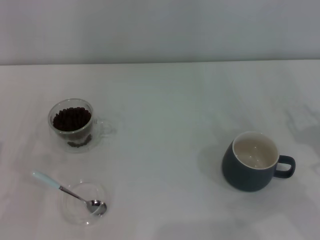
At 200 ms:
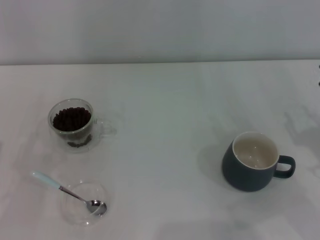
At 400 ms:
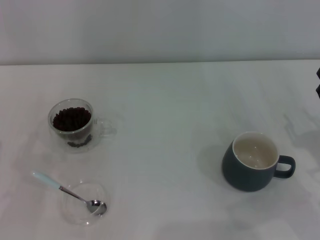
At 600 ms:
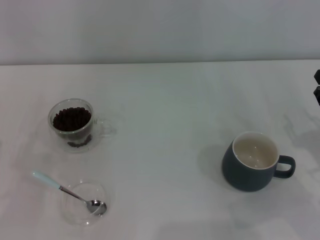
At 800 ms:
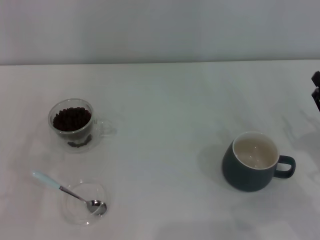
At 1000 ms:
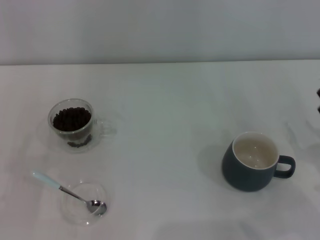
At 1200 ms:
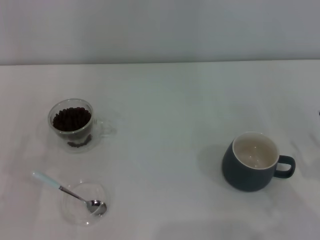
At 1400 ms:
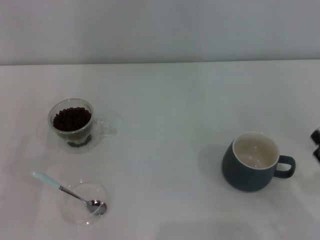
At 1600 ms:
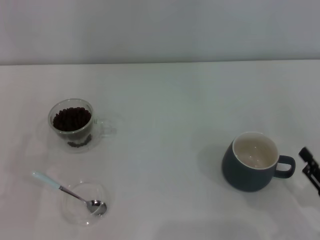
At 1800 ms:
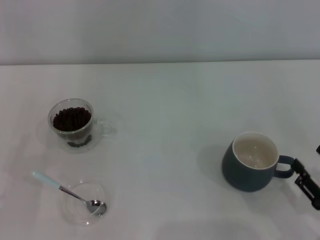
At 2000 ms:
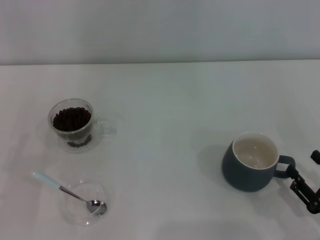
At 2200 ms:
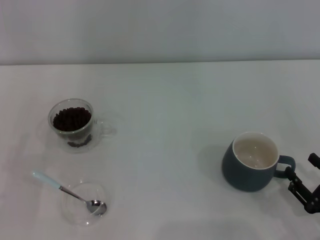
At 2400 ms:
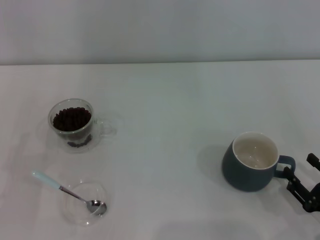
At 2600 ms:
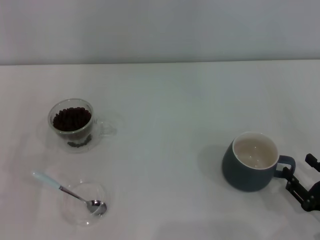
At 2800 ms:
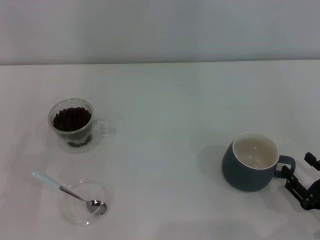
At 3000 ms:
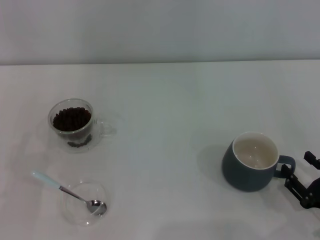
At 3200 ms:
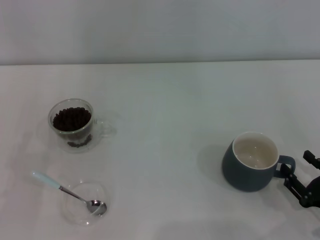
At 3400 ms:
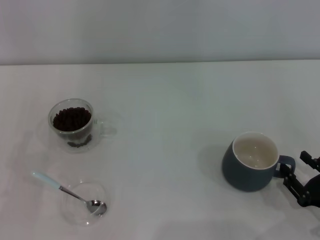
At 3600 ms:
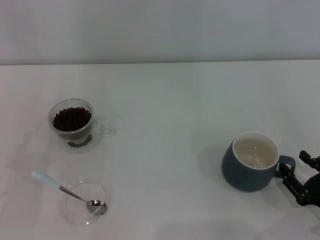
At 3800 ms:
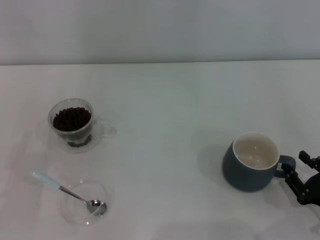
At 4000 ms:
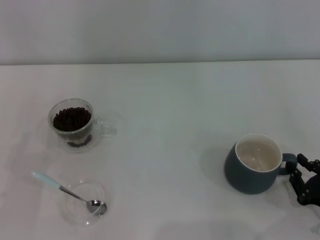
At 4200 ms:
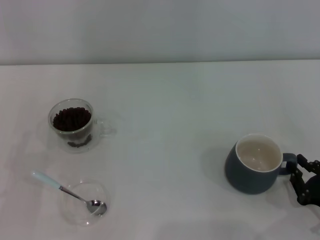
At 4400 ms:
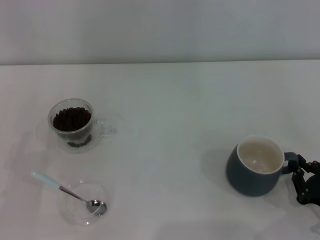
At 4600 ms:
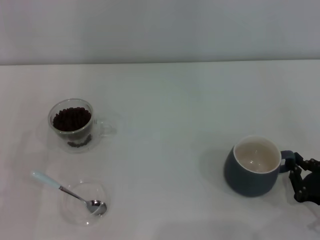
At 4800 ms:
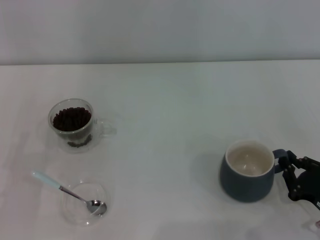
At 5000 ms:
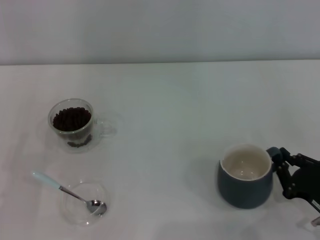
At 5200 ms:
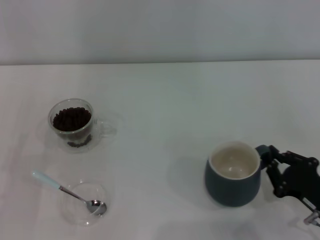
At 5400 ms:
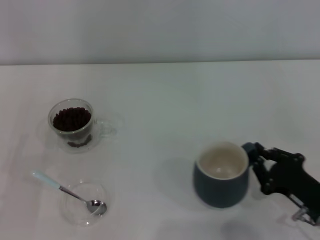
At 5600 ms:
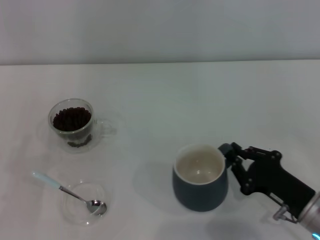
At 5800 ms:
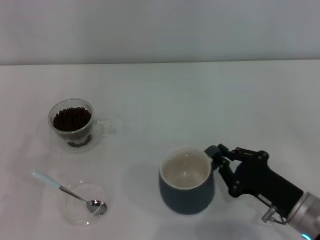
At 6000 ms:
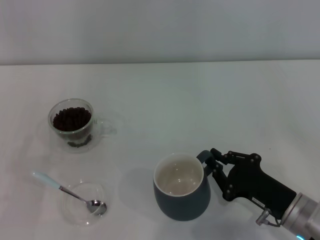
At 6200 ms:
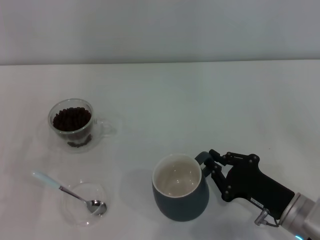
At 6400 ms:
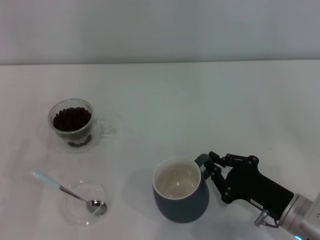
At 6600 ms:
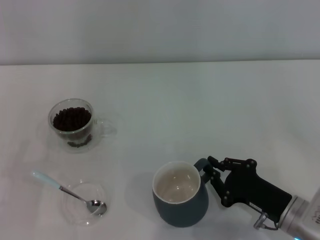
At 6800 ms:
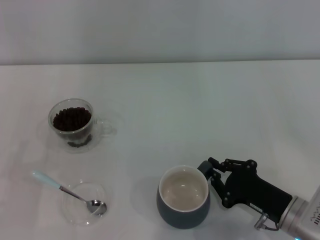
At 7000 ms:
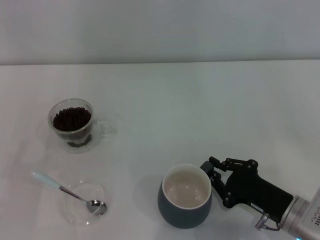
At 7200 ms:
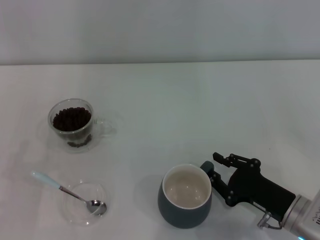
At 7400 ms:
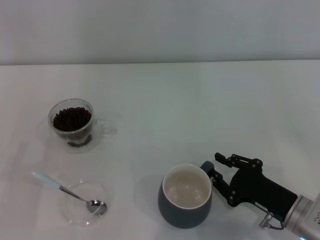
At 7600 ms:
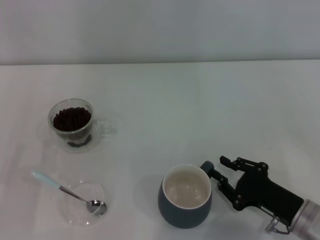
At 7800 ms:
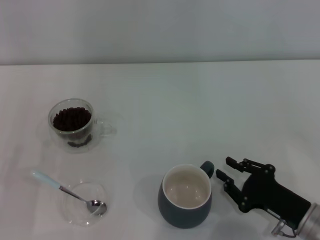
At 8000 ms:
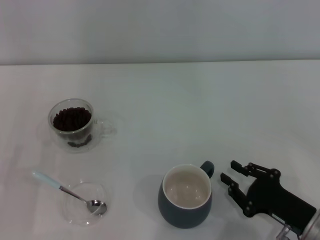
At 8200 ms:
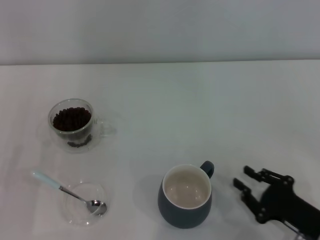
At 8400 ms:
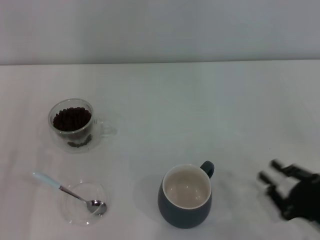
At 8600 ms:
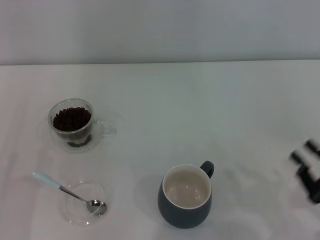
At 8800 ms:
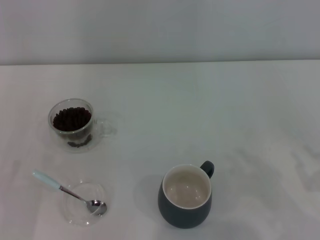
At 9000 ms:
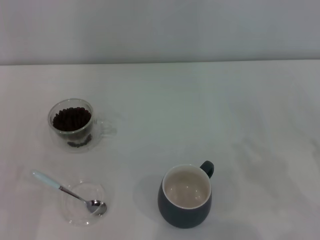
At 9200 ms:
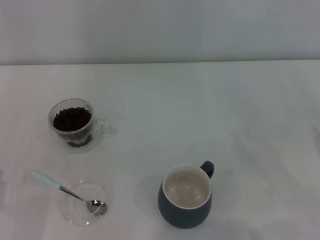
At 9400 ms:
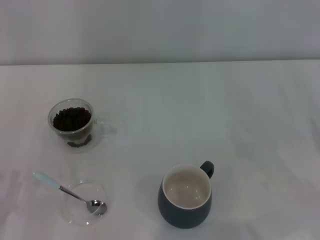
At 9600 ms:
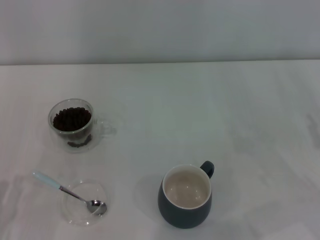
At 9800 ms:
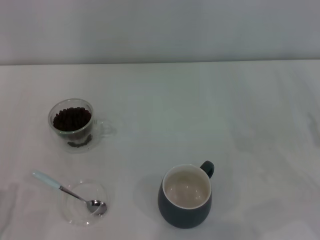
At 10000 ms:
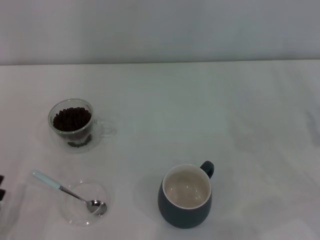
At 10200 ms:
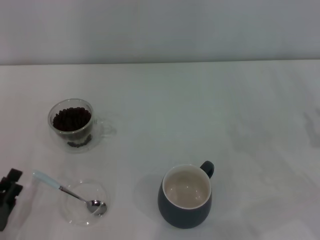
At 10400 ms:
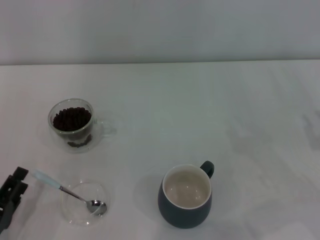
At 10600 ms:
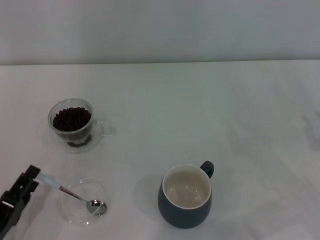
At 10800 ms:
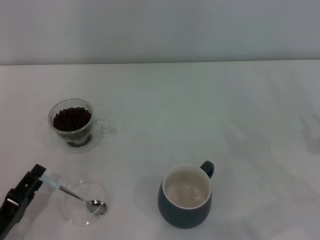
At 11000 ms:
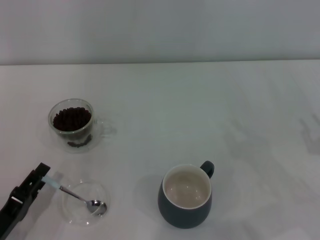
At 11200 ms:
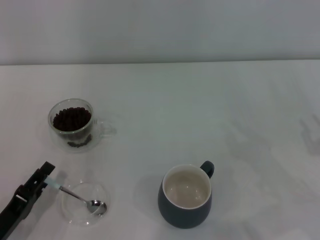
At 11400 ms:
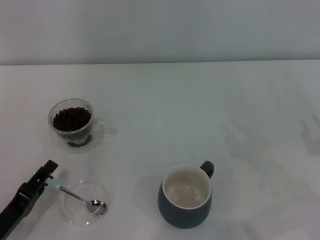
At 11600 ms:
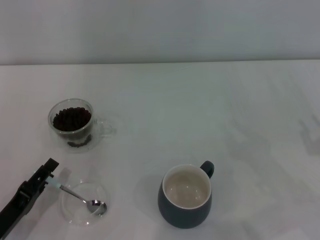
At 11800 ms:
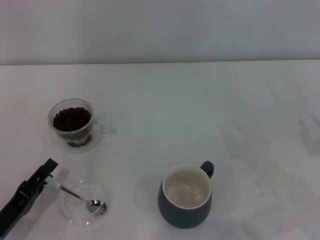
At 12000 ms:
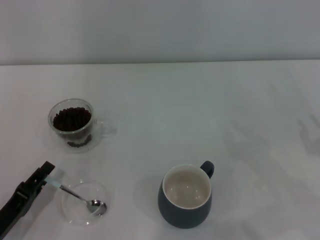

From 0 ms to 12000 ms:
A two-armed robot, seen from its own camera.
Task of the whole recording: Use a blue spoon to take out the coffee beans from the glass and pour them into the gray cup.
Step, from 0 ms to 8000 ms: Move the cup to the center of view with the left gripper.
From 0 ms to 1600 ms: The right gripper travels backward by about 10 cm.
From 1600 ms to 3000 ms: The grippers move only a little.
From 3000 ms to 4400 ms: The right gripper closes.
From 4400 ms to 6000 ms: The right gripper heads to the left, covering roughly 10 cm.
From 6000 ms to 7600 ms: The right gripper opens.
From 7600 ms to 9000 ms: The right gripper moves to the right and upward, roughly 15 cm.
From 9000 ms to 10400 ms: The left gripper moves some 5 cm.
From 10400 ms to 12000 ms: There are only small adjustments of the grippers.

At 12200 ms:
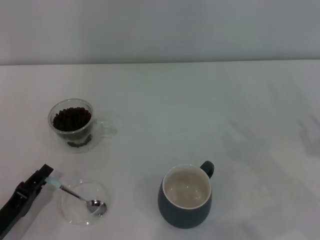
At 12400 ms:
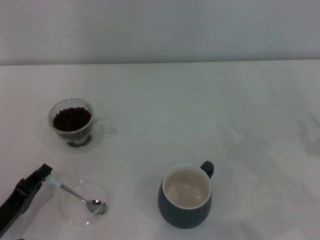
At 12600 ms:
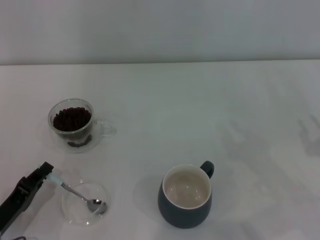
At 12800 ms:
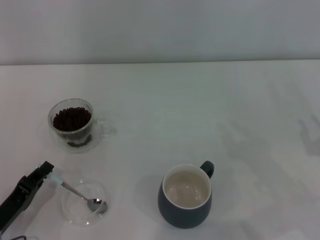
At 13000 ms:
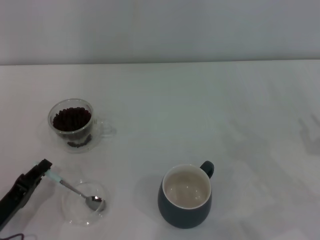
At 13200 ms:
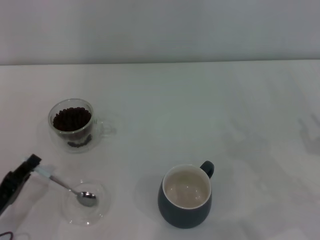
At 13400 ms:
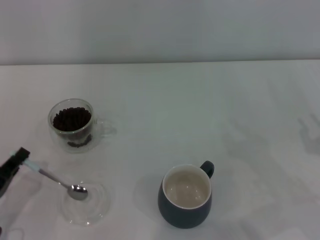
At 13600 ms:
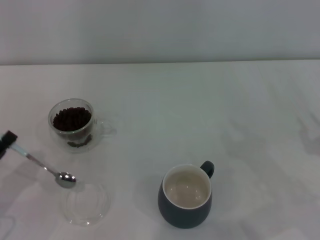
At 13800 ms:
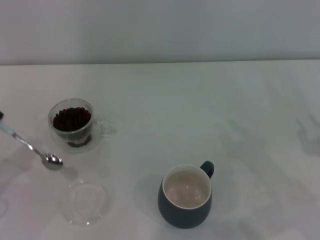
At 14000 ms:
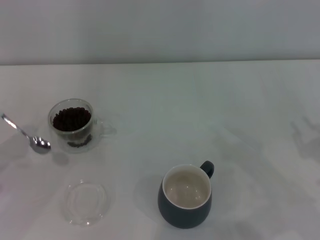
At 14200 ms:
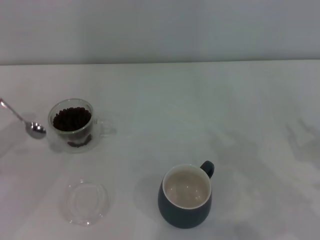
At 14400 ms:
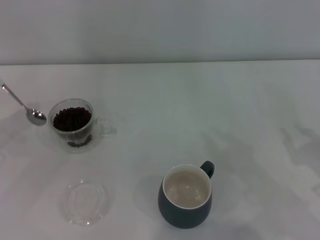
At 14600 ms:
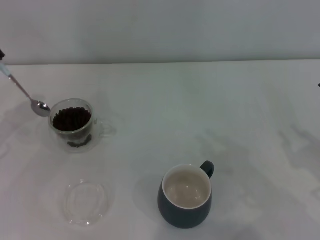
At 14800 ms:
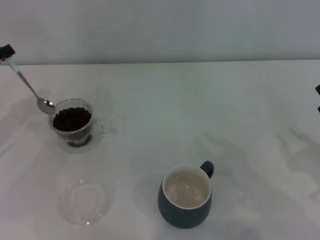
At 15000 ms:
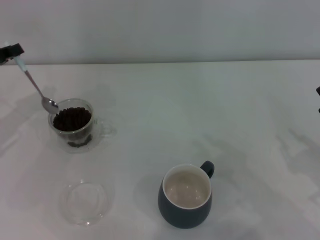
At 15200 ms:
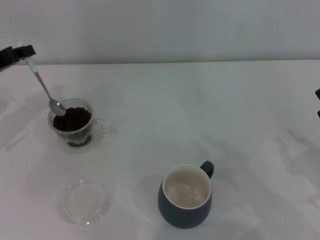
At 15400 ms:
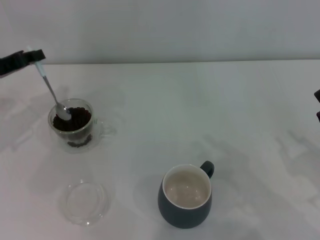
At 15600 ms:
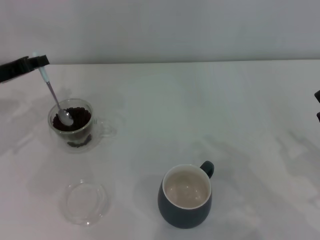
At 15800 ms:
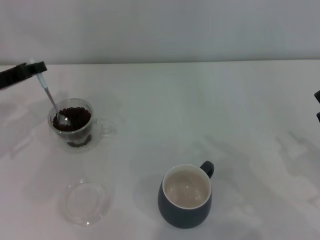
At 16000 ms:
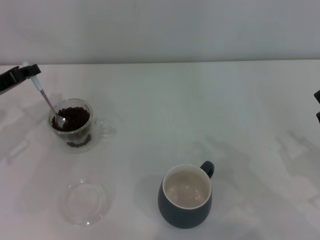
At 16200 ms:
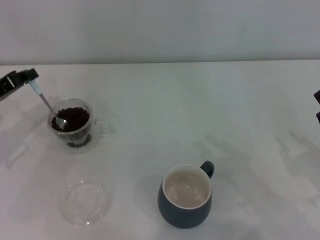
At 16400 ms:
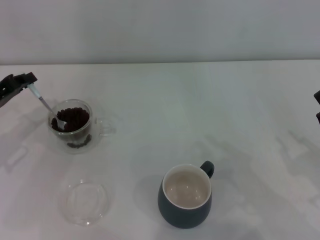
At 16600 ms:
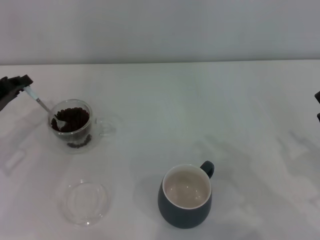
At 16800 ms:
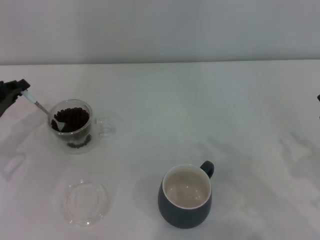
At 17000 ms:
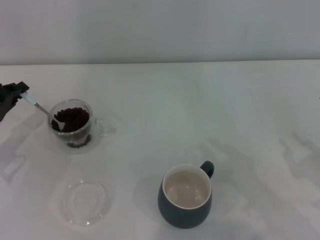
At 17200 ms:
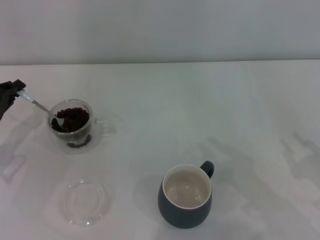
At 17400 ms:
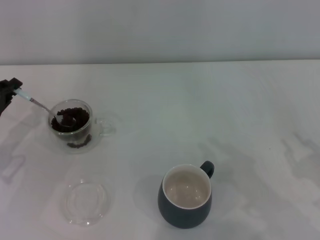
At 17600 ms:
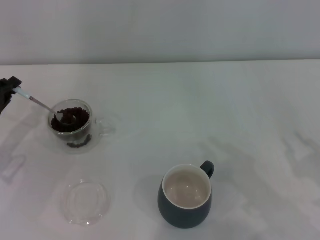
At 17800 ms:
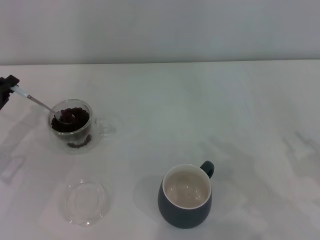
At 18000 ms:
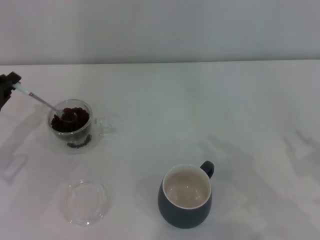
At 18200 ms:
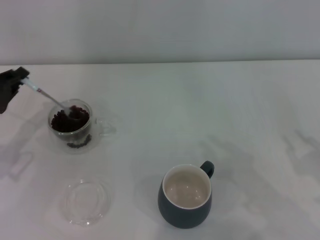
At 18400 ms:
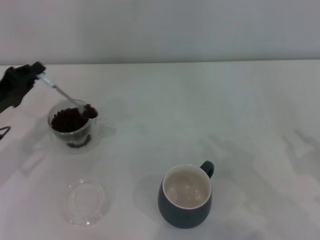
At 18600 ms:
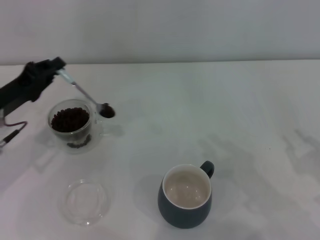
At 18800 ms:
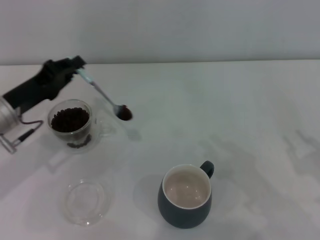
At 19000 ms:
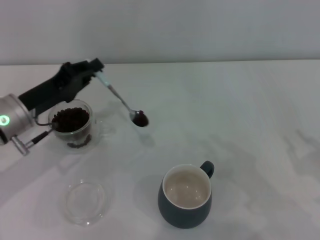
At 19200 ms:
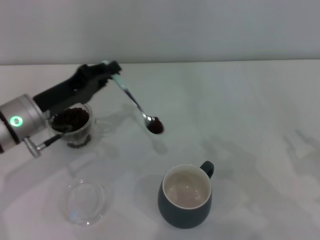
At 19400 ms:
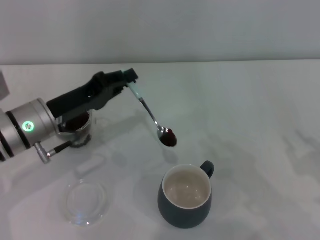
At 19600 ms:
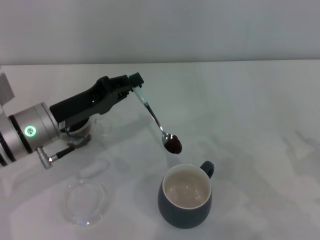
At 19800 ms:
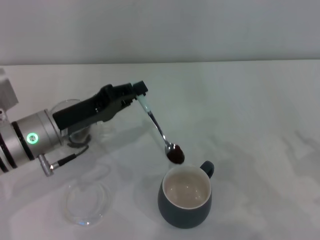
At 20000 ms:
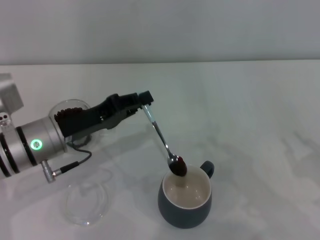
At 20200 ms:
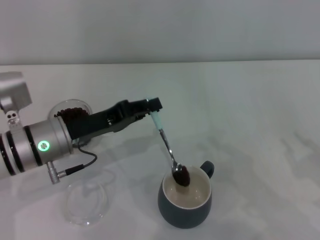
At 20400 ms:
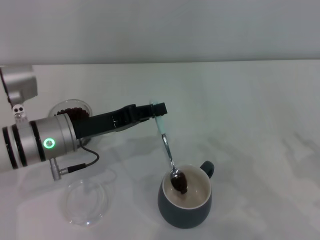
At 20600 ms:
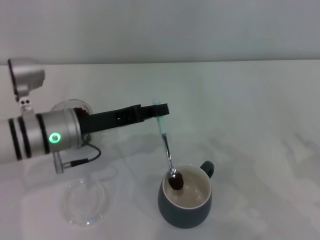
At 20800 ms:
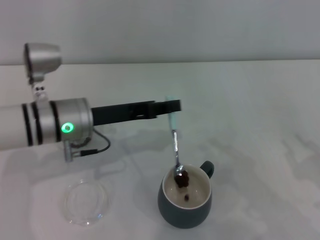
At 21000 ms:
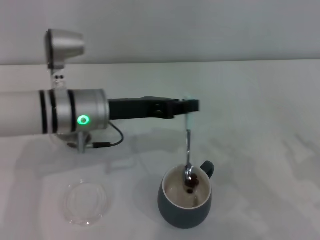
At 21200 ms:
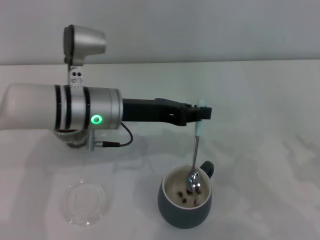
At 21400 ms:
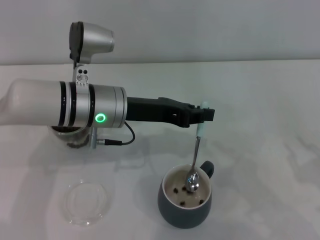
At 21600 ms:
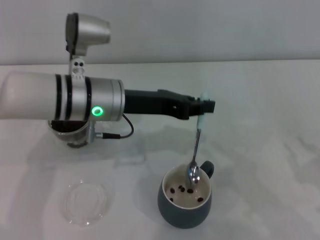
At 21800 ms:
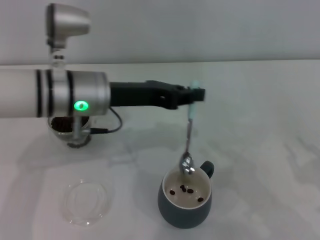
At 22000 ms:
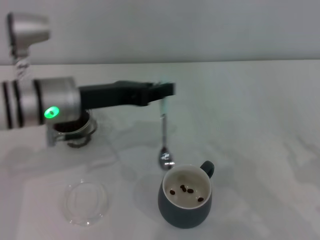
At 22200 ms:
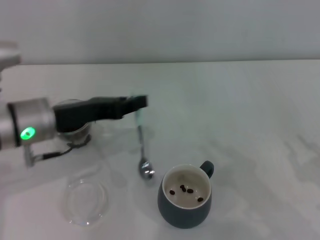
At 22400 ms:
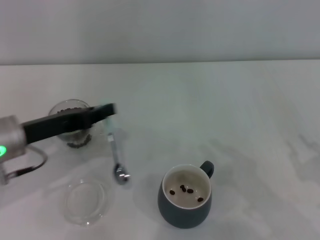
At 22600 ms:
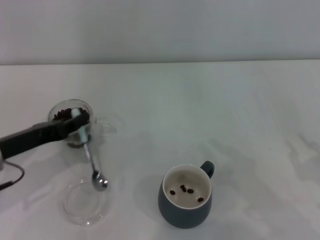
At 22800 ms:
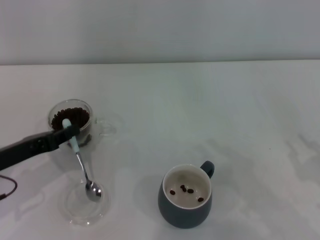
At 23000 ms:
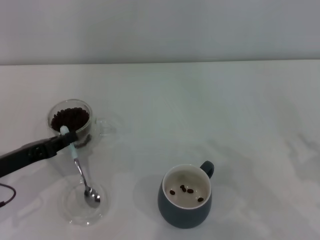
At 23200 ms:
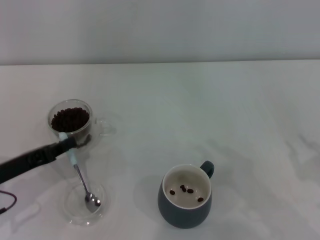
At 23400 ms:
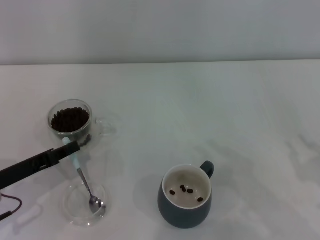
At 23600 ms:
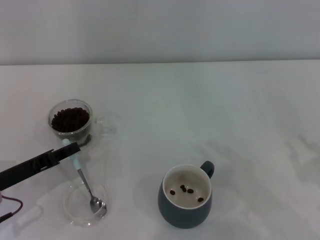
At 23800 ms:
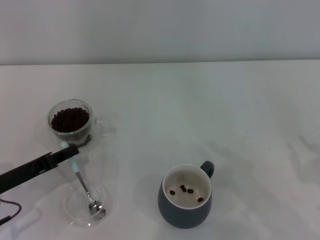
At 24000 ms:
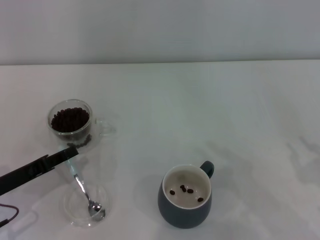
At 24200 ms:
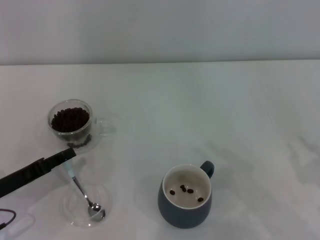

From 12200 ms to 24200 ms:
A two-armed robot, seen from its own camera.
Task of the whole recording: Use a blue spoon to take out the coffee beans from the glass and pour them into the gray cup.
From 12200 ms to 13800 ms: The left gripper goes about 10 cm upward and to the left, and closes its fingers.
From 13800 ms to 15200 ms: The left gripper moves forward and upward, some 20 cm.
From 15200 ms to 16600 ms: The left gripper ends up some 5 cm from where it was.
From 16600 ms to 18200 ms: The grippers make only small movements.
From 18200 ms to 19800 ms: The left gripper travels to the right by about 10 cm.
From 19800 ms to 21200 ms: The left gripper is displaced to the right by approximately 10 cm.
From 21200 ms to 22600 ms: The left gripper moves to the left, about 15 cm.
From 22600 ms to 24200 ms: The left gripper is displaced downward by about 5 cm, and opens up.
